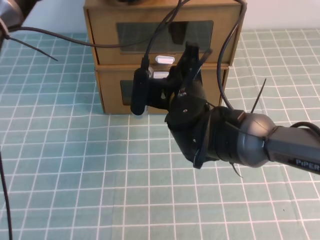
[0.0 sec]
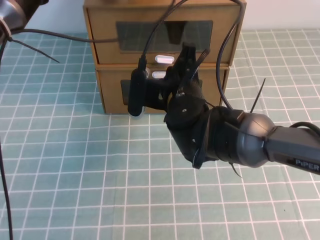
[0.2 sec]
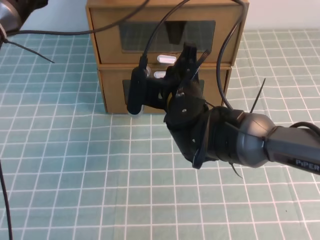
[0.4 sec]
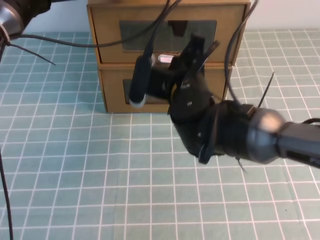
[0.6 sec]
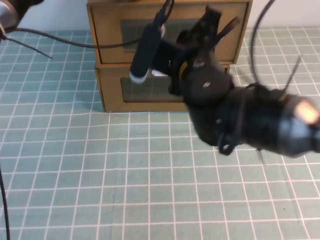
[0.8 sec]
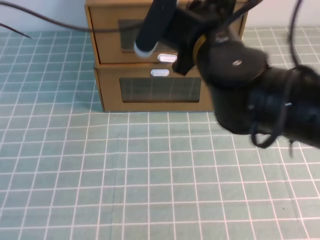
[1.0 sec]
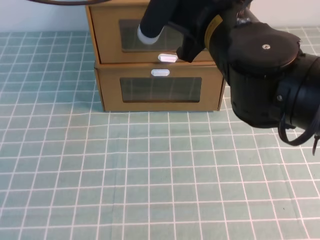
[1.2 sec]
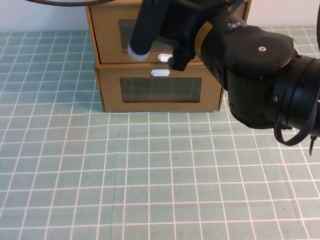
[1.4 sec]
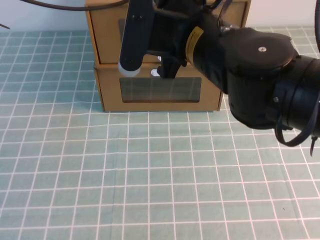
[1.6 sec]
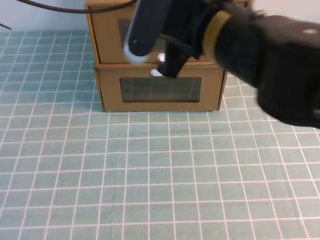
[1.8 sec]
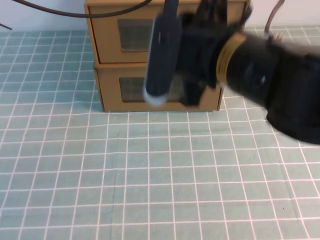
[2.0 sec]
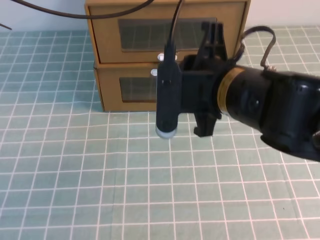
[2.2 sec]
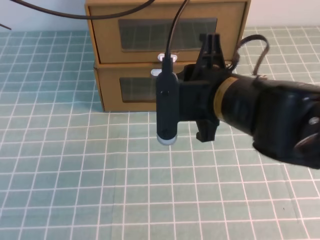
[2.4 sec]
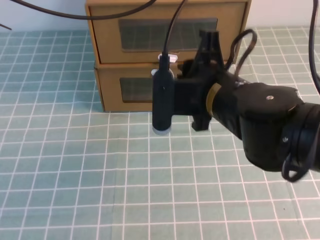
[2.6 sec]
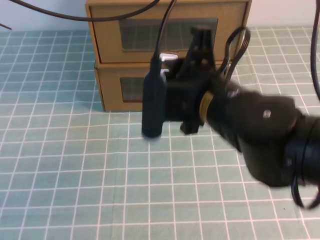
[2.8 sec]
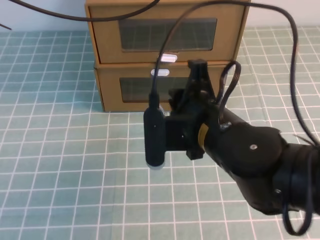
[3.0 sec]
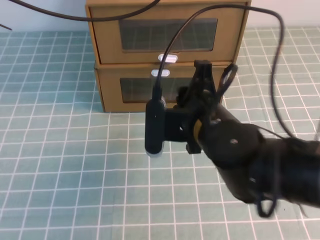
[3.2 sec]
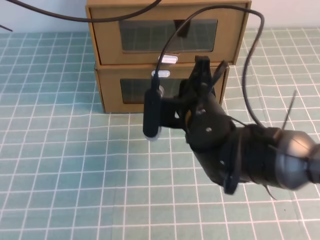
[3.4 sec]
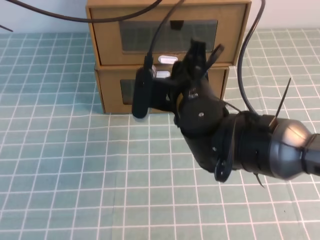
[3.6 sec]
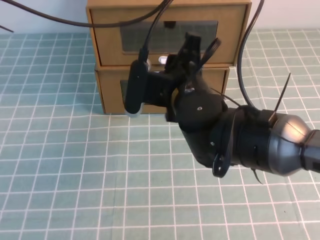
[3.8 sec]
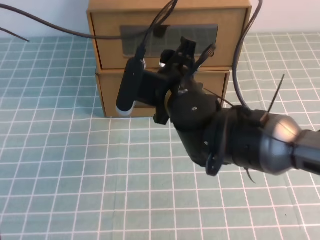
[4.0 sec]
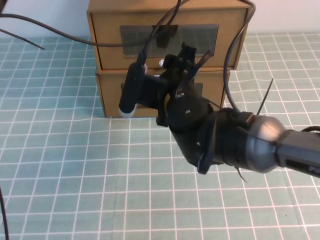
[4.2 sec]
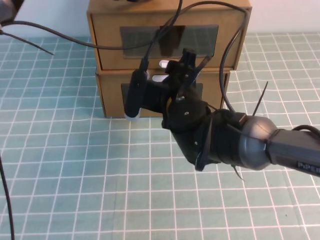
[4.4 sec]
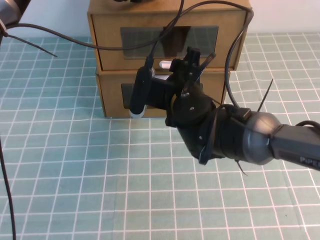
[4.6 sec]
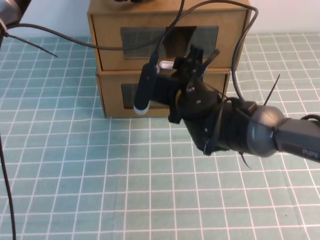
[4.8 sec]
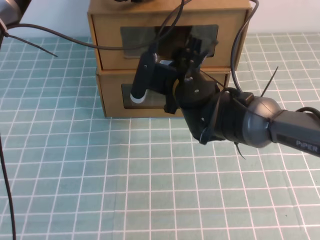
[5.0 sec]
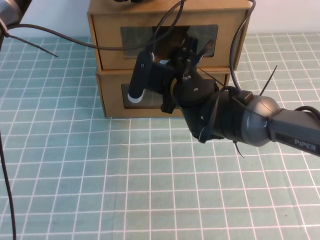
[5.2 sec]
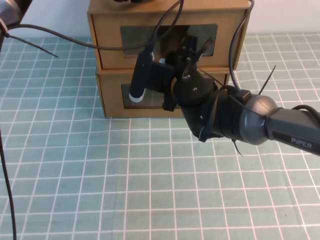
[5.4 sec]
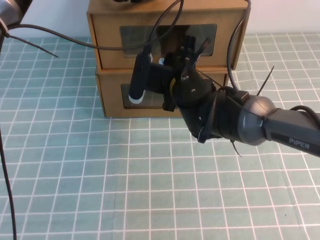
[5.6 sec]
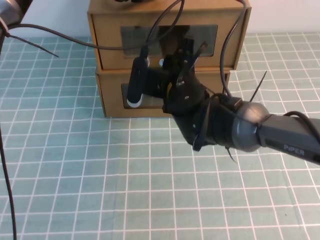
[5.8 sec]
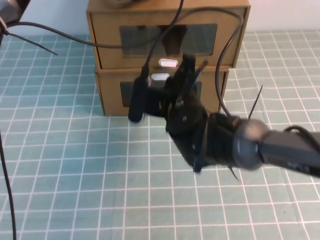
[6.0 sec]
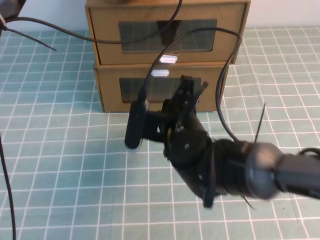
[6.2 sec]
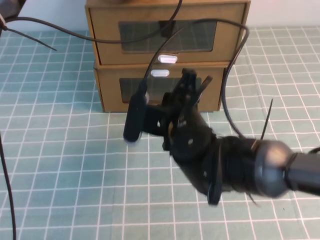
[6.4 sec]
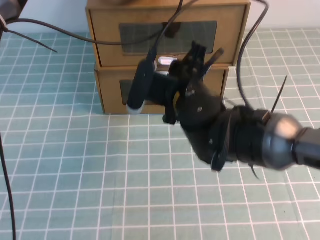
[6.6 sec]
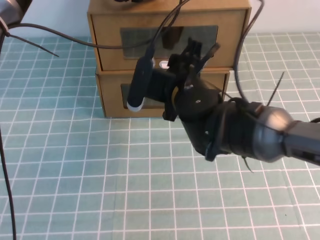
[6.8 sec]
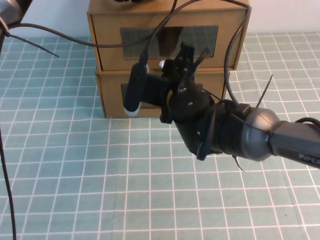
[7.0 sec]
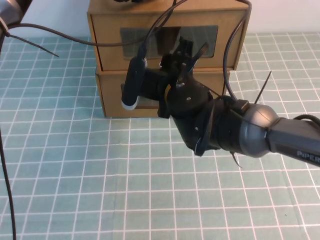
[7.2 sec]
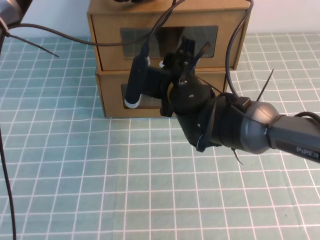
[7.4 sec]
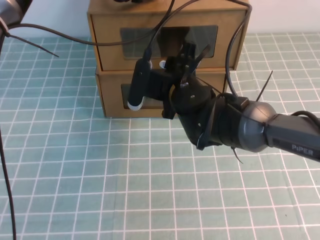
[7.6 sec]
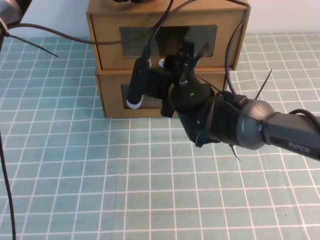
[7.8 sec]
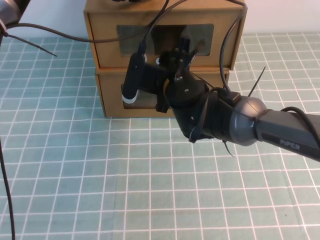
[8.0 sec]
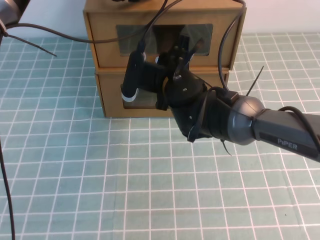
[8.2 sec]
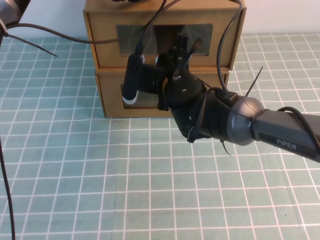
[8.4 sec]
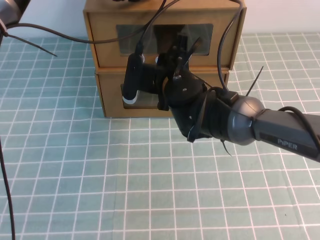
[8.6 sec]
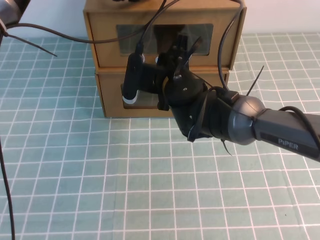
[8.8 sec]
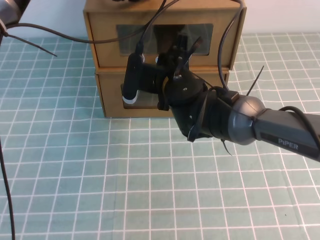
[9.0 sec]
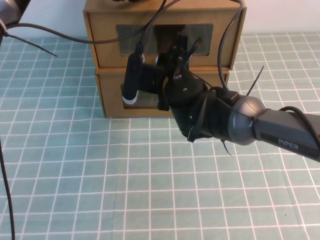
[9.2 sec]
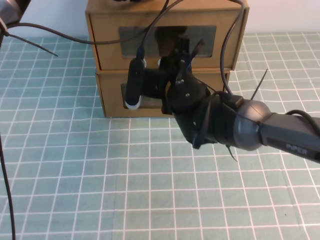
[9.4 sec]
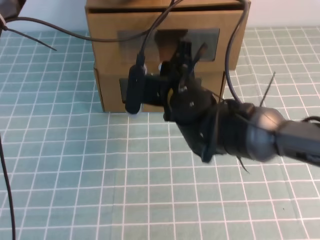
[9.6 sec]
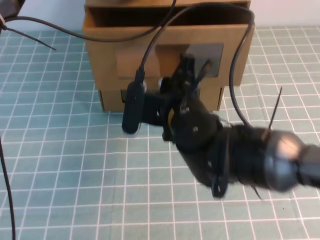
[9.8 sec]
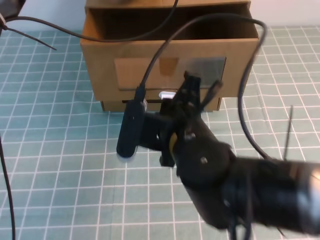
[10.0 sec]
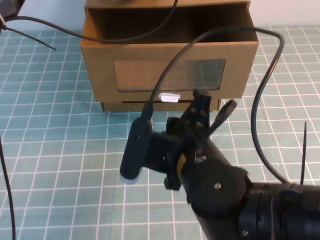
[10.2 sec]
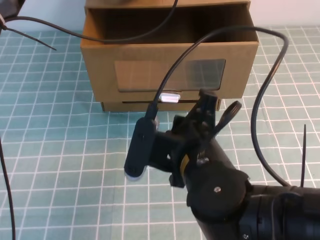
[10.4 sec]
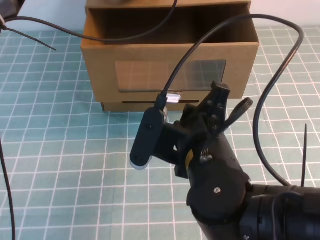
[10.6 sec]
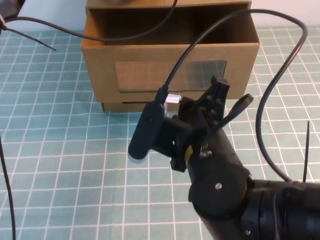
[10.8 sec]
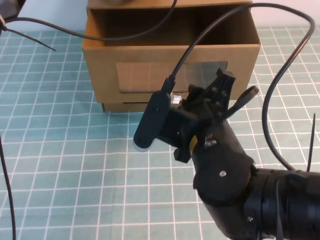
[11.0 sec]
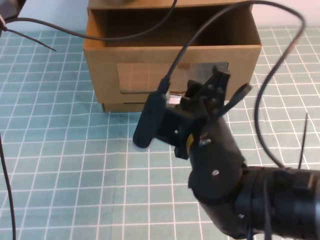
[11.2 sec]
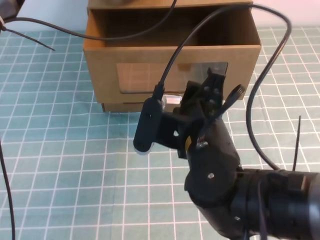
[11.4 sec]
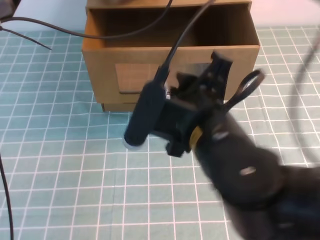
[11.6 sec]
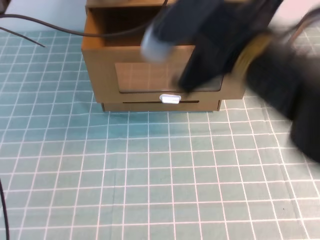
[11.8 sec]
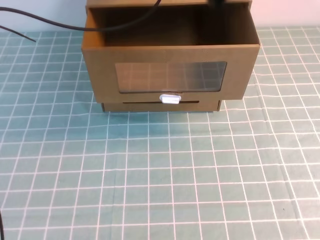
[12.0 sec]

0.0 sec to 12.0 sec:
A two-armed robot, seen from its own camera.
Task of the whole recording: open the shoebox on the cyan tablecloth.
0.0 sec to 1.6 sec: The right gripper travels upward by about 15 cm. The left gripper travels upward and backward by some 15 cm.
1.6 sec to 3.0 sec: The right gripper goes approximately 10 cm downward.
3.0 sec to 4.4 sec: The left gripper moves forward and downward, about 10 cm, and opens. Meanwhile the right gripper travels forward by approximately 10 cm, and opens.
4.4 sec to 6.0 sec: The right gripper closes.
6.0 sec to 7.6 sec: The right gripper opens.
7.6 sec to 9.0 sec: The right gripper closes its fingers.
9.0 sec to 10.4 sec: The right gripper shifts roughly 20 cm backward.
10.4 sec to 12.0 sec: The left gripper closes up. The right gripper shifts approximately 20 cm upward, and opens, then closes once more.

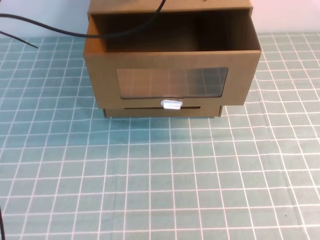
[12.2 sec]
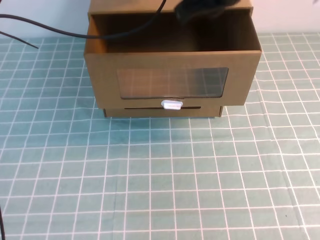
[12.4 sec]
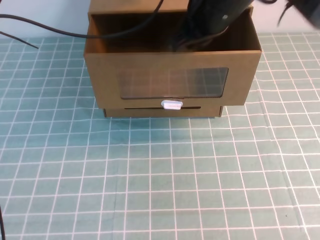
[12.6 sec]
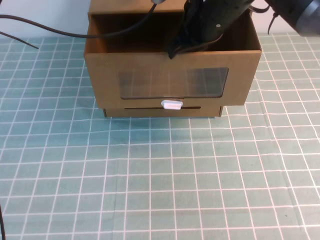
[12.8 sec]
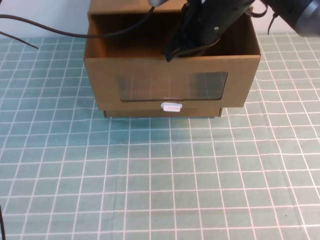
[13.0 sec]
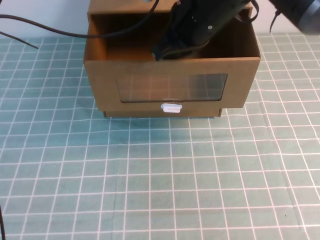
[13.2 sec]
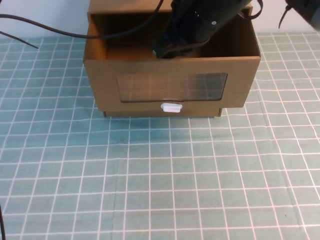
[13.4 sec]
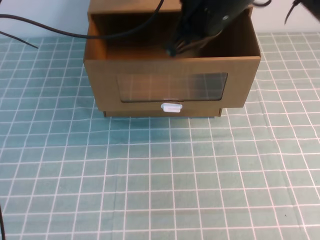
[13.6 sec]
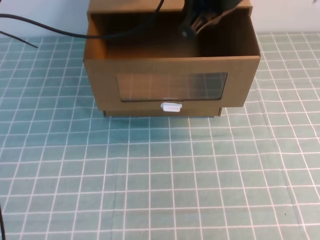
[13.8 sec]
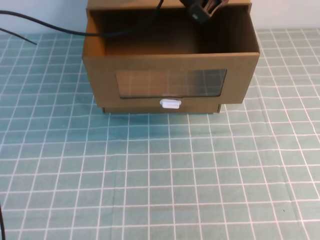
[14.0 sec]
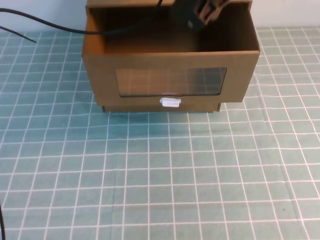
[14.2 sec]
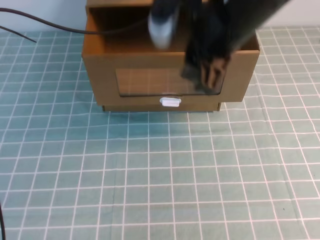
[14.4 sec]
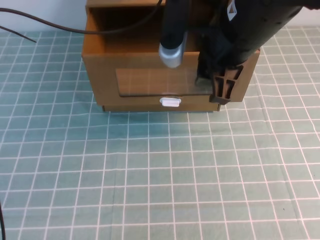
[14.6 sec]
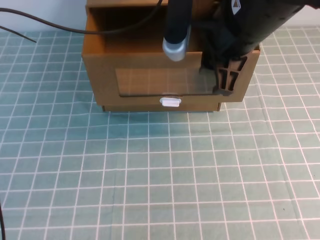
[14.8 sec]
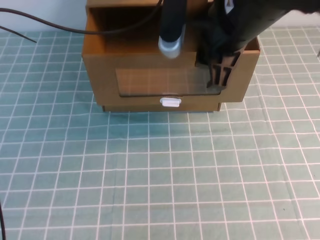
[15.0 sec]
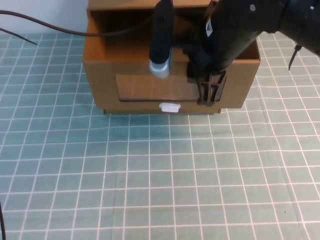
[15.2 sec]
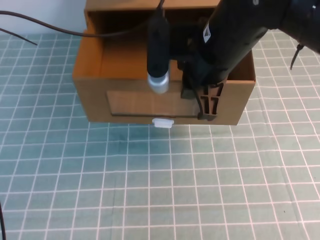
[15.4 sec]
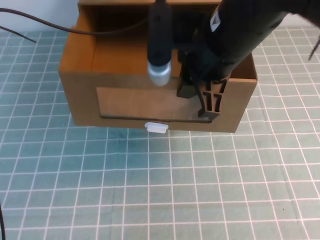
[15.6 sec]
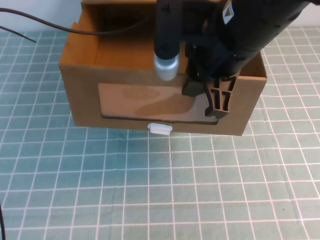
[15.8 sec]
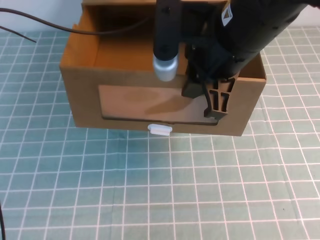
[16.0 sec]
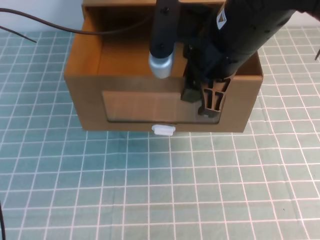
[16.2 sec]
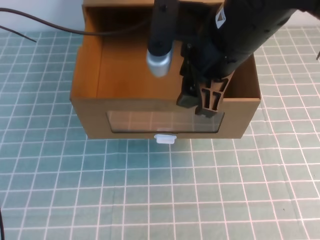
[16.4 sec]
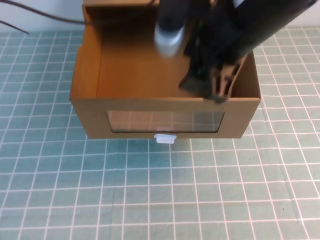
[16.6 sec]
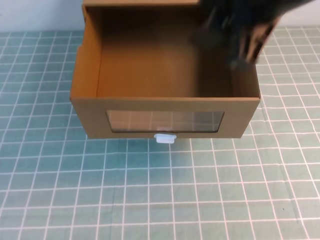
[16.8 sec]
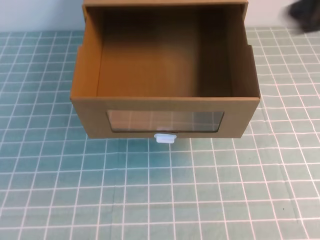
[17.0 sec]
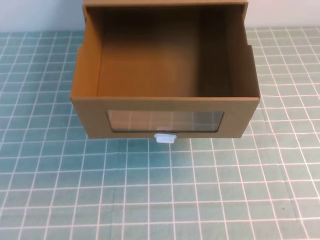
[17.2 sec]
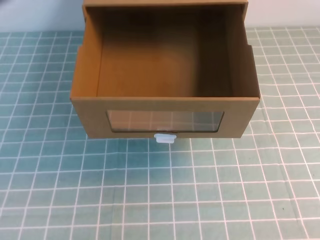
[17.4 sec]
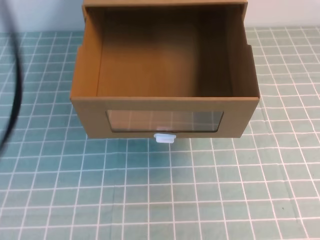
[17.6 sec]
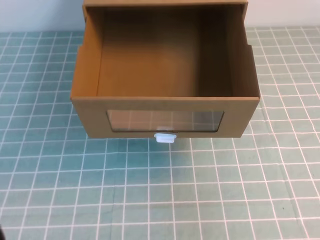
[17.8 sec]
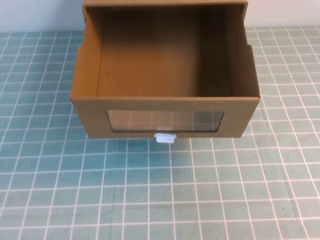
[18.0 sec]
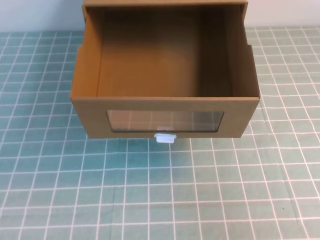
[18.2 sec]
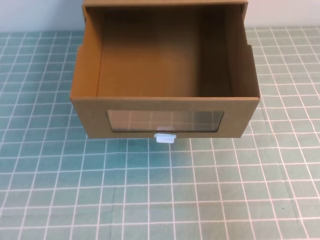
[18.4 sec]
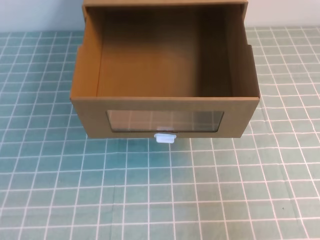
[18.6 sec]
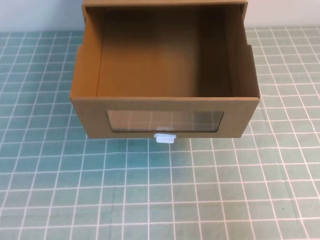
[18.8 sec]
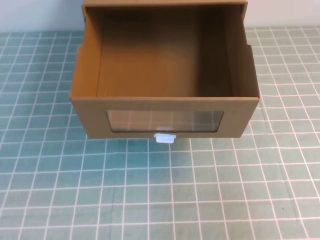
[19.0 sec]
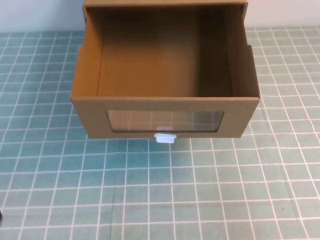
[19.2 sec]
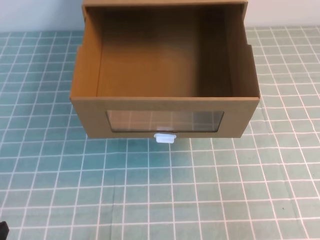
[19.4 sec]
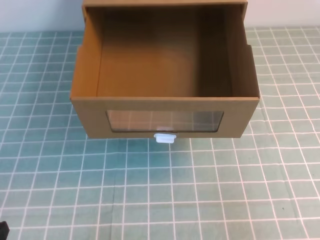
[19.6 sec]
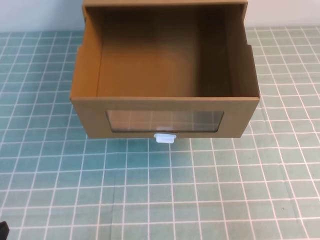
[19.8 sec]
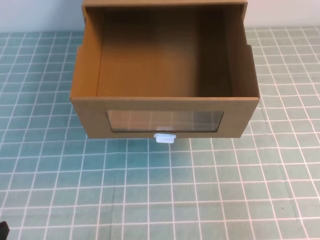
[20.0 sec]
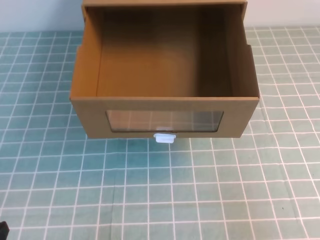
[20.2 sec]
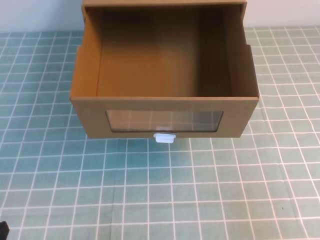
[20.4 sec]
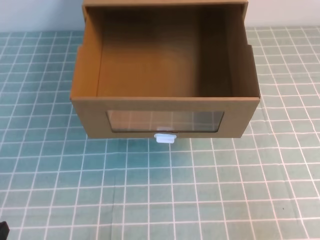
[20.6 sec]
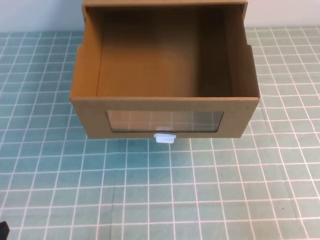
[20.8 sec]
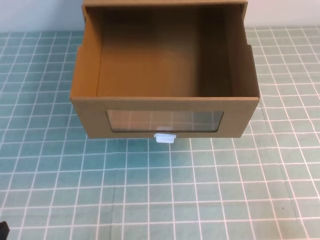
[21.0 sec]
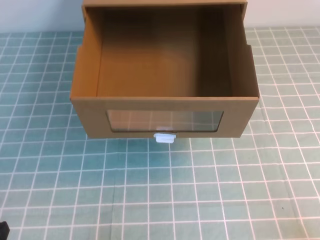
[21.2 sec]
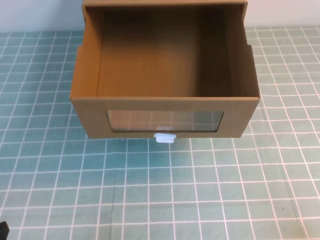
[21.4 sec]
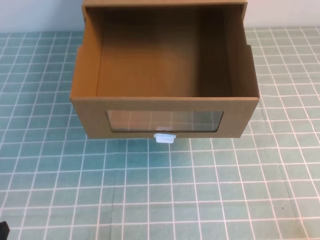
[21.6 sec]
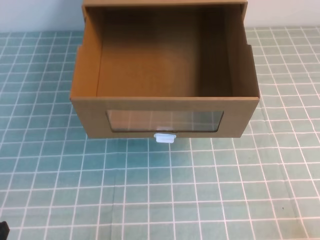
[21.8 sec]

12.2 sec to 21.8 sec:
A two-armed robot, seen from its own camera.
Task of the whole recording: open the shoebox on the cyan tablecloth.
Step, 12.2 sec to 21.8 sec: Open the shoe box.
13.8 sec to 15.4 sec: The right gripper shifts roughly 5 cm downward, and opens, then closes once more.
15.4 sec to 17.0 sec: The left gripper is displaced upward and backward by roughly 20 cm; the right gripper goes some 20 cm upward, backward and to the right, and opens, then closes once more.
17.0 sec to 18.6 sec: The right gripper goes roughly 25 cm downward, to the right and backward, and closes its fingers.
